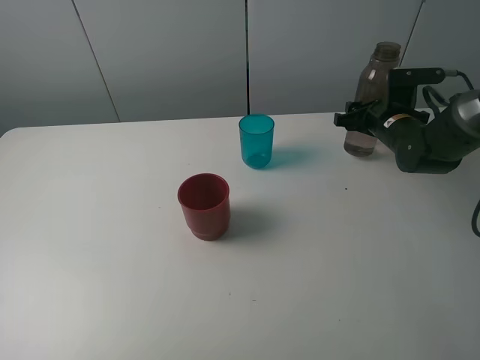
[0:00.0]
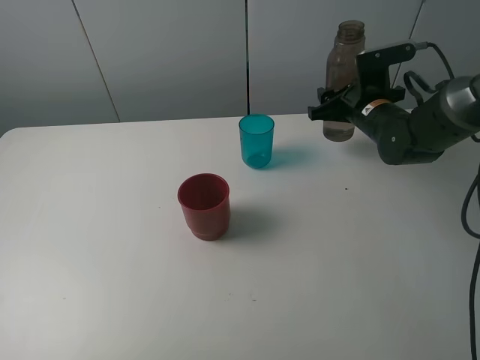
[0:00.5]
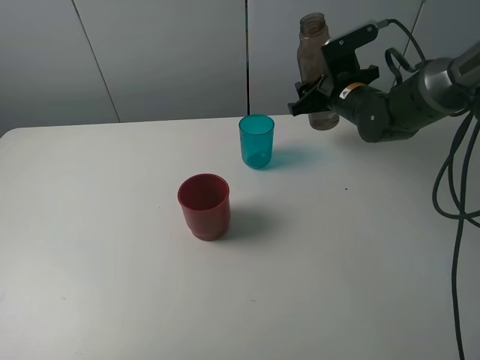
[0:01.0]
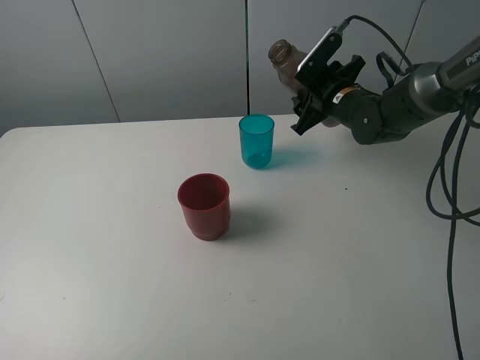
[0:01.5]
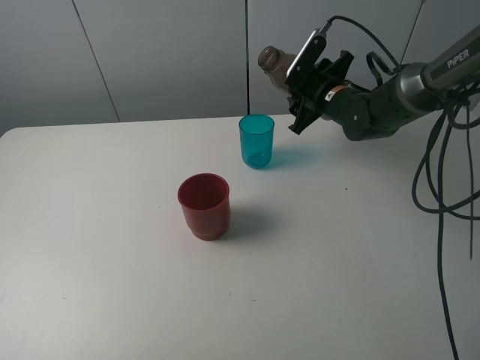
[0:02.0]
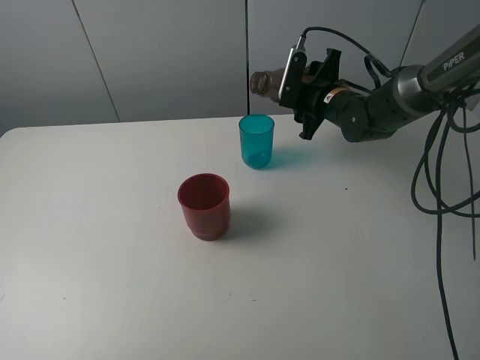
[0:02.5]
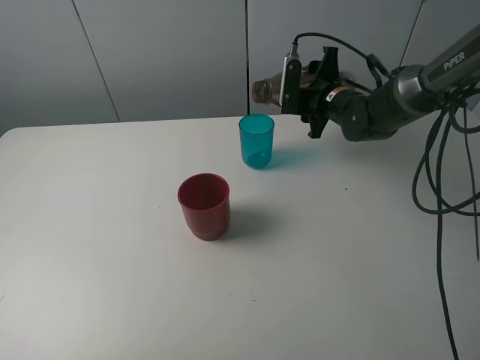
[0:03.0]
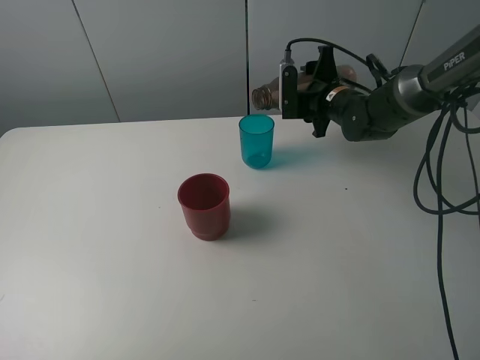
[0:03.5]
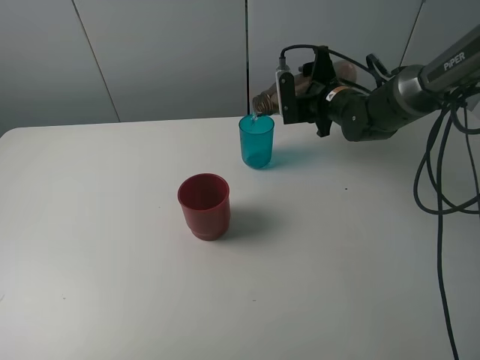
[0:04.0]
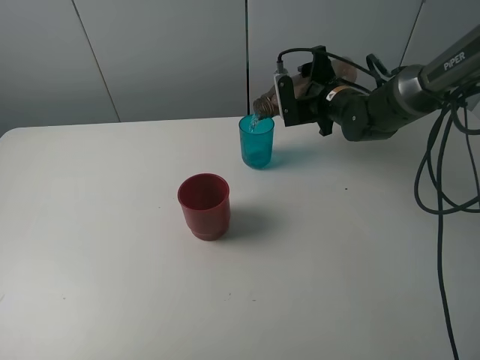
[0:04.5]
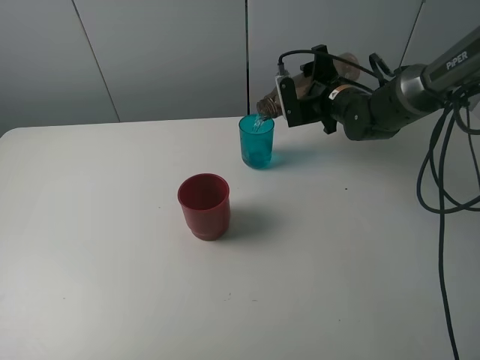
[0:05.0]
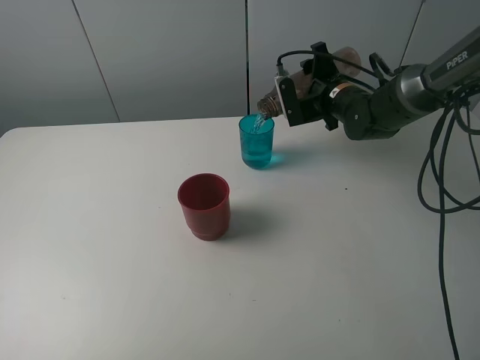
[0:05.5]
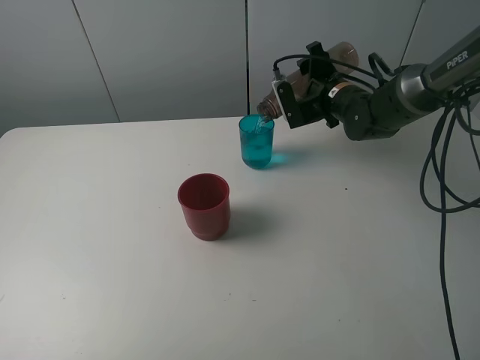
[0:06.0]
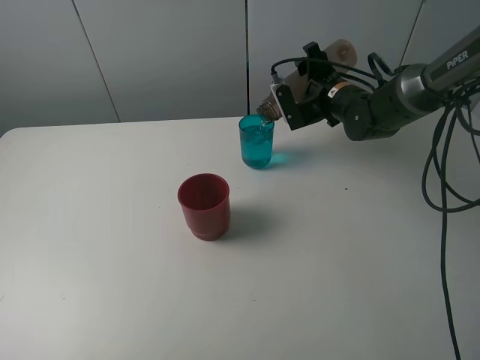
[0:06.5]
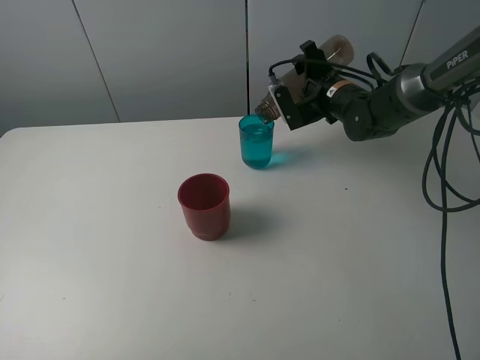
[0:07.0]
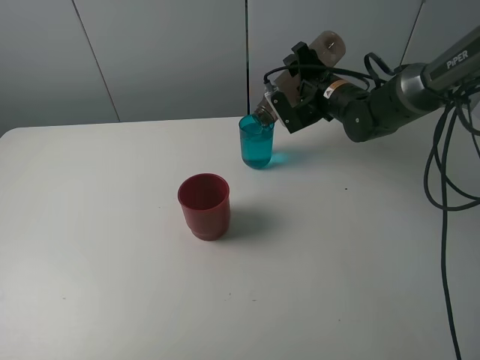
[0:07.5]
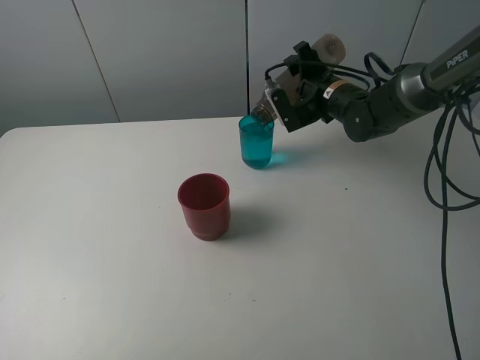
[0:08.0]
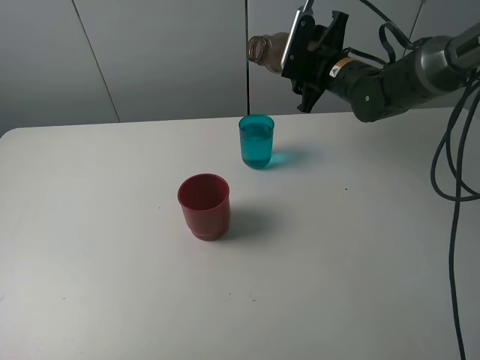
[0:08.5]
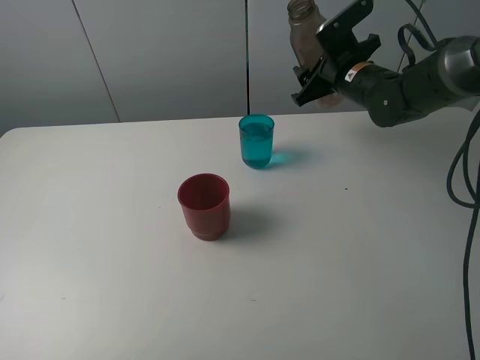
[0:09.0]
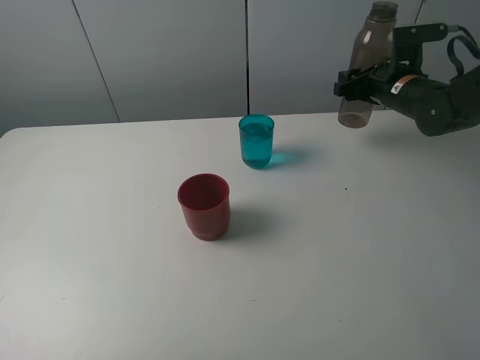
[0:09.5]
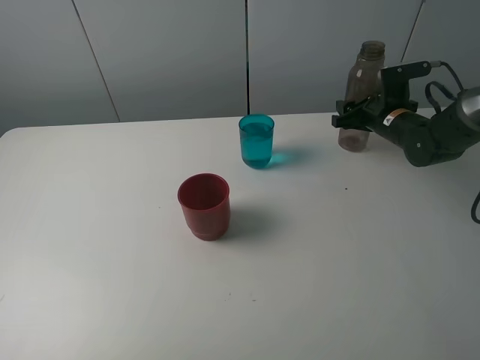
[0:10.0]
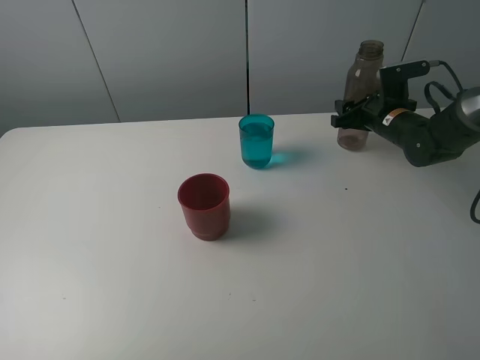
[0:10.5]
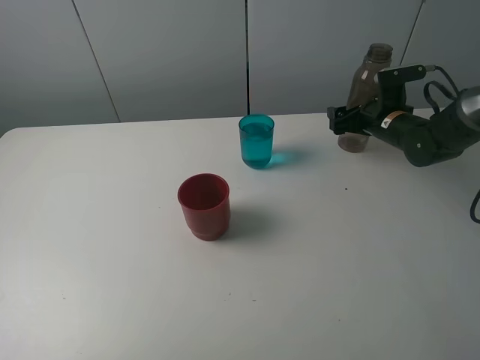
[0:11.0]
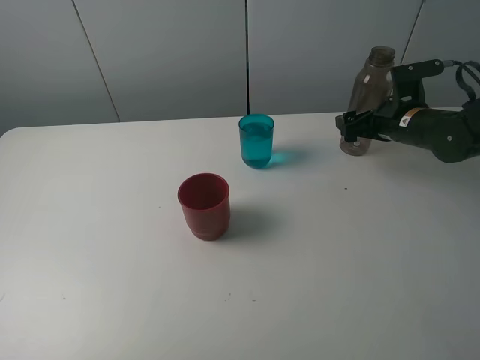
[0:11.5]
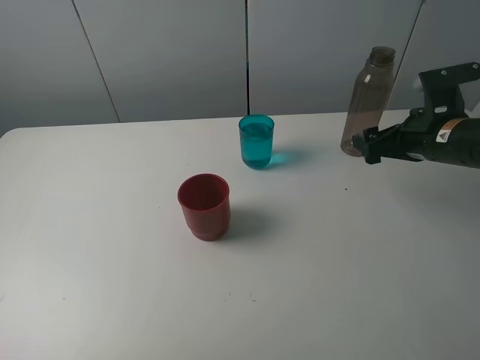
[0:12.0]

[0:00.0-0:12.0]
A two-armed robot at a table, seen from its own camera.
Task of the whole recording: pick up the bottle and pour water into the cup, then pick up the cup containing water and pour it into another cup.
Step, 0:00.0 to 0:07.5: Pour water from brown bottle to blue cup with the right gripper.
Step, 0:08.0 to 0:11.0: Place the brown bottle with the right gripper.
0:00.0 to 0:02.0: The right gripper shifts about 10 cm to the left.
0:04.0 to 0:06.0: The grippers move only a little.
0:06.0 to 0:08.0: The grippers make only small movements.
0:08.0 to 0:10.0: The right gripper heads to the right, covering approximately 10 cm.
0:10.0 to 0:12.0: The right gripper heads backward and upward, covering some 15 cm, and opens.

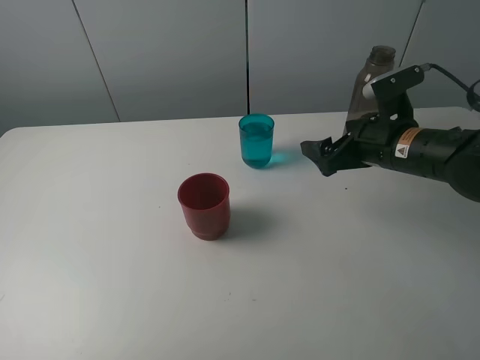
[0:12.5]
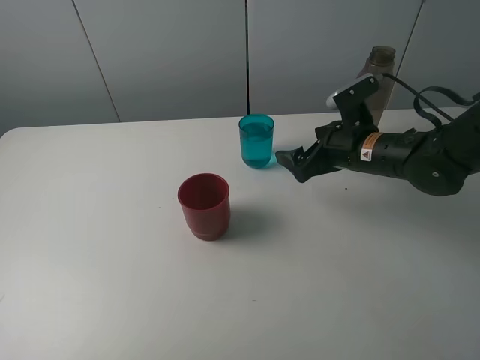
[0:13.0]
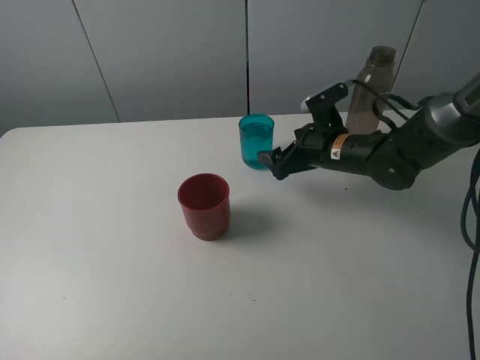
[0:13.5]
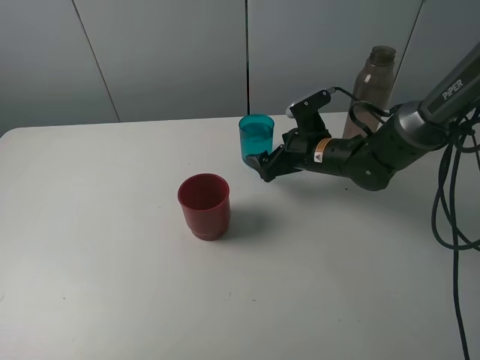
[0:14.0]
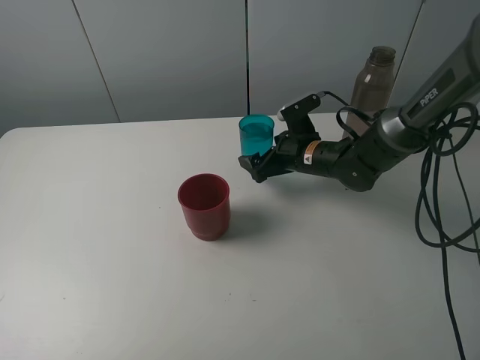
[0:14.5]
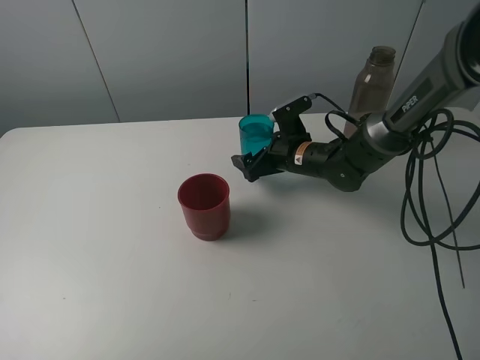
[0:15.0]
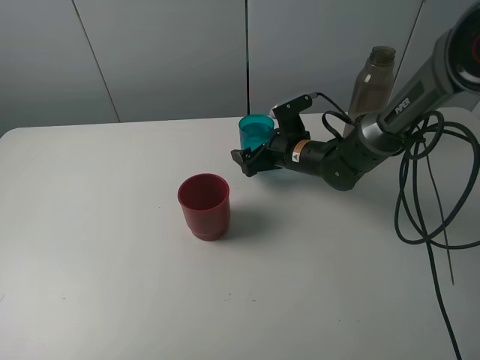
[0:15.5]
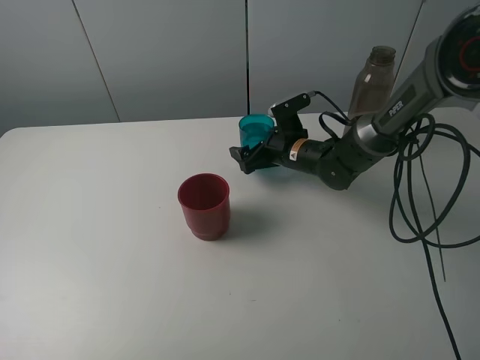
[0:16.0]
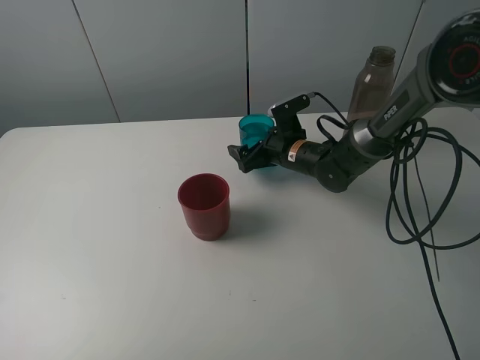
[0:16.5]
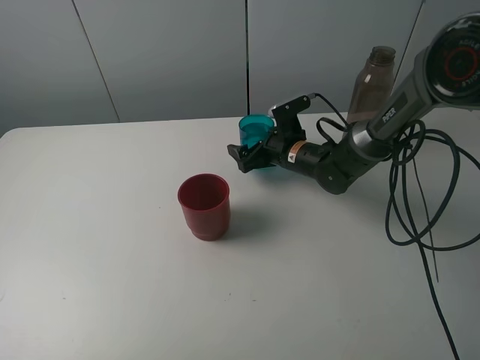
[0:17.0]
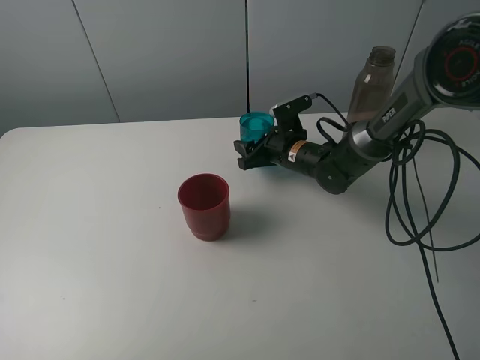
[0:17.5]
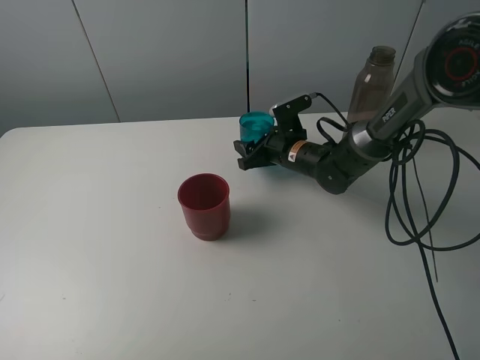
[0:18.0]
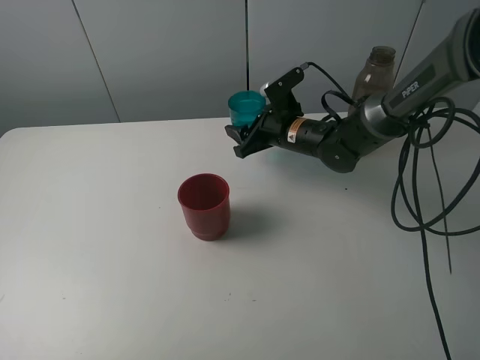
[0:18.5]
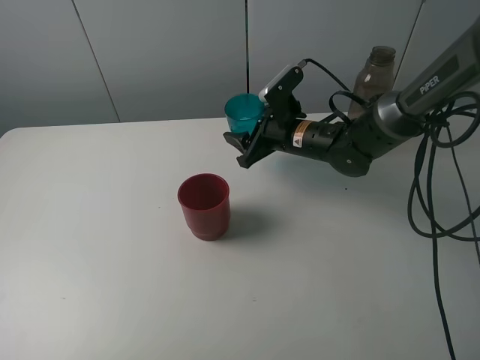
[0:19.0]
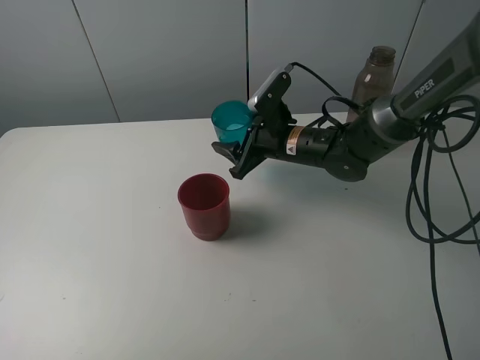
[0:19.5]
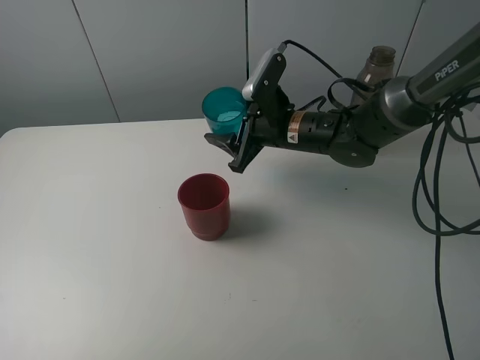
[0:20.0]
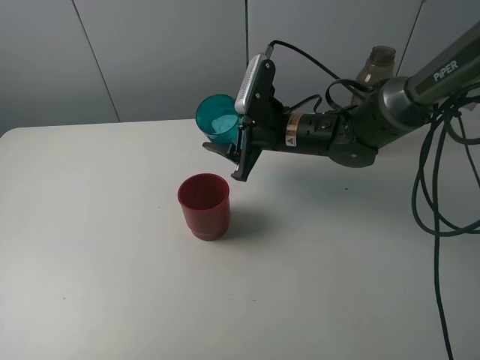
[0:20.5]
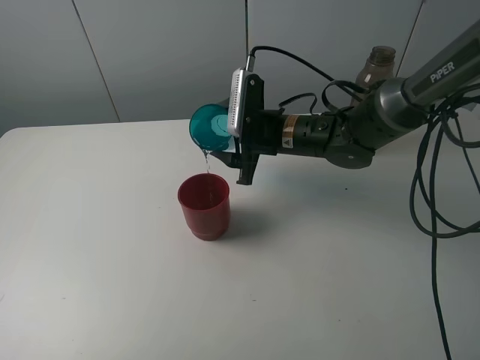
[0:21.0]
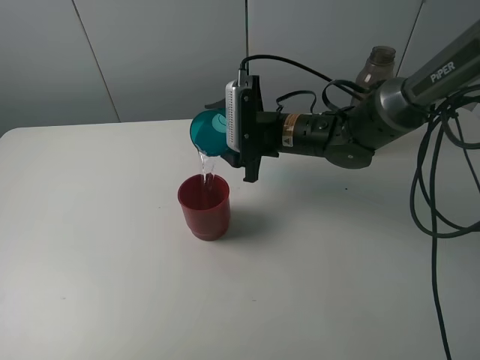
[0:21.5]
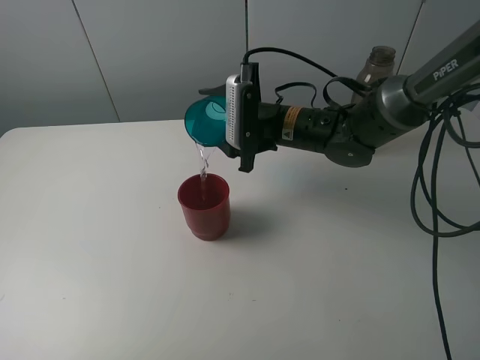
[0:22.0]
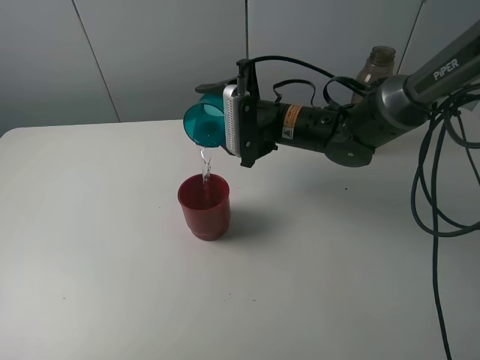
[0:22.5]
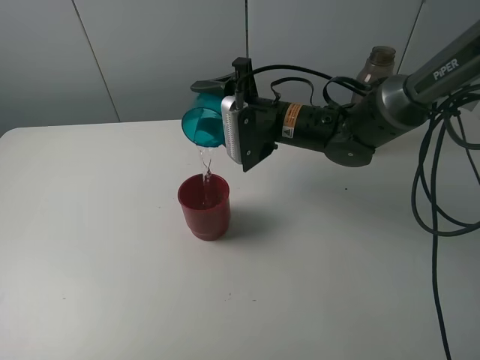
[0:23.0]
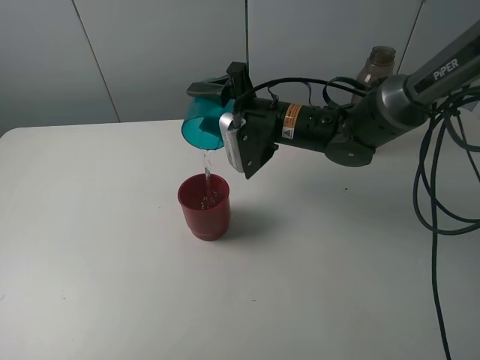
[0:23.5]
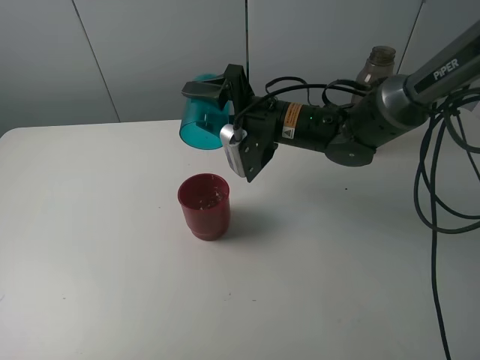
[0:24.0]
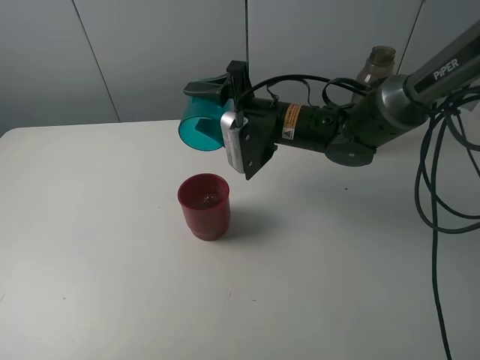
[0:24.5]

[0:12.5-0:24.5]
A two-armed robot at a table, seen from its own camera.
Task of the whole recording: pick up the bottle and pour water into the cup, then pick up the cup containing water and pour it into another cup.
Step, 0:12.5 to 0:17.5: Grasp the blue cup with the right gripper.
Step, 0:18.0 to 0:24.0: Pour water from blue cup to red cup with the right gripper.
0:12.5 to 0:14.5: The right gripper shifts approximately 15 cm to the left, downward and forward.
0:14.5 to 0:16.5: The grippers stay close to where they were, moving slightly.
0:16.5 to 0:18.5: The right gripper closes its fingers.
0:18.5 to 0:20.5: The right gripper shifts by approximately 5 cm.

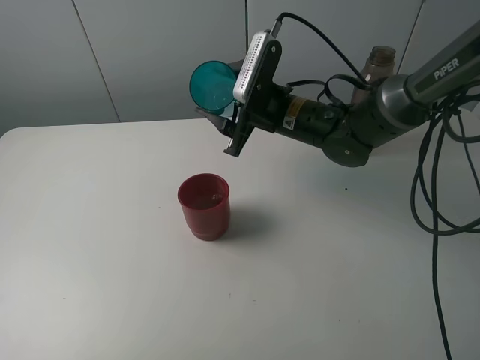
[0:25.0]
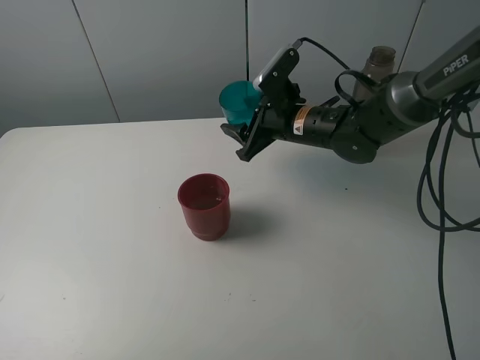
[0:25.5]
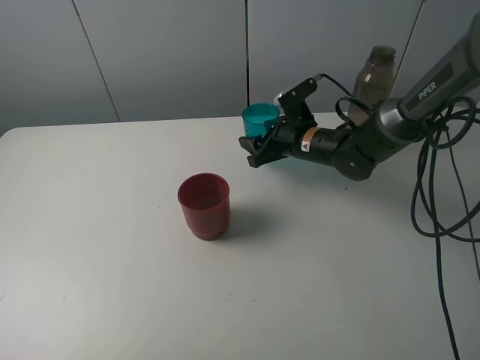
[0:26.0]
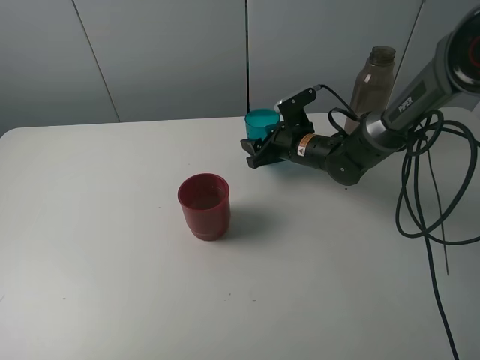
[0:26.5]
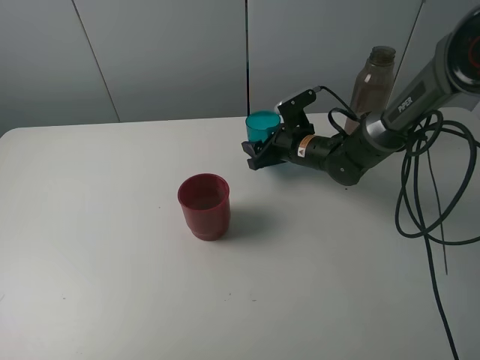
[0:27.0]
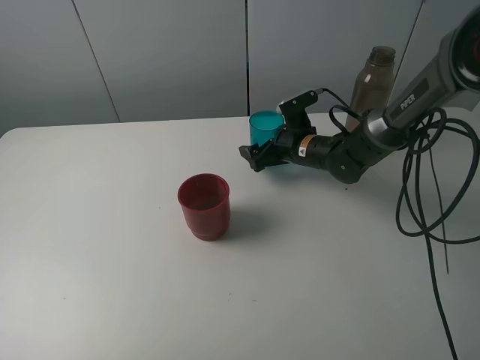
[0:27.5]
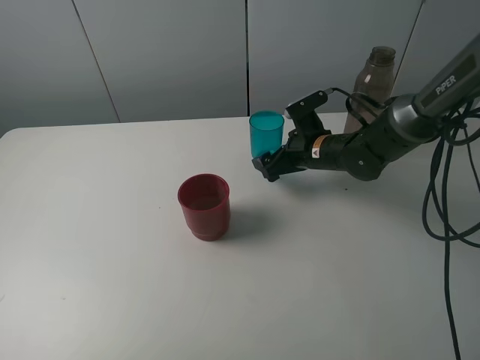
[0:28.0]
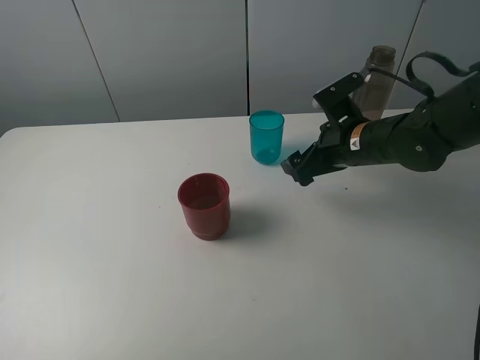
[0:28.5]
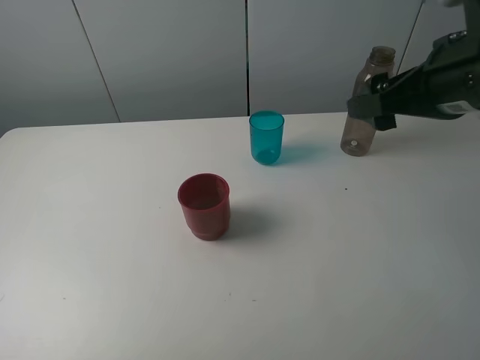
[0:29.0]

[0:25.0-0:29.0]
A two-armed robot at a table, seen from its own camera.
Task of the whole recording: pick up the bottle and pour water into the cup, then pick up the cup containing water and pour it into another cup.
Step, 0:25.0 to 0:27.0: Place the blue cup with the right gripper.
0:25.0 to 0:27.0: The right gripper moves downward, about 10 cm.
0:27.0 to 0:29.0: The right gripper moves upward, backward and to the right, approximately 35 cm, and opens its fingers.
